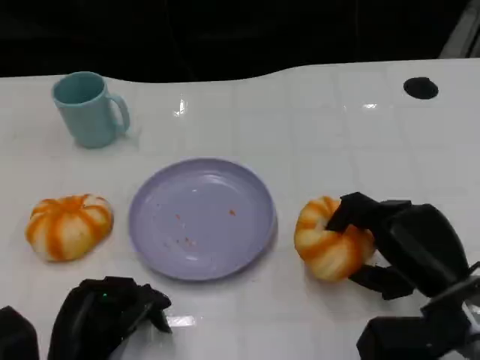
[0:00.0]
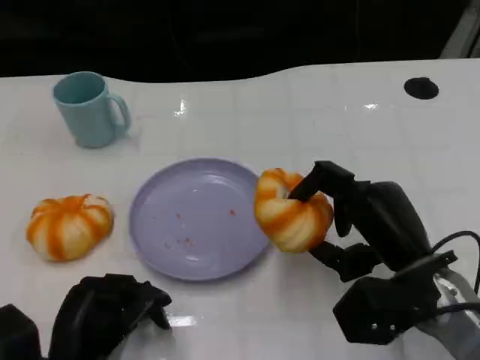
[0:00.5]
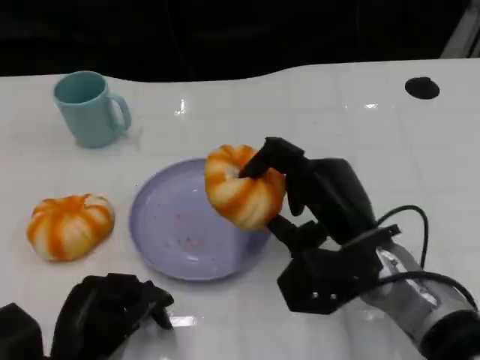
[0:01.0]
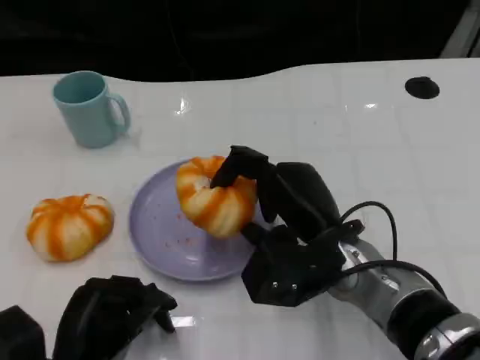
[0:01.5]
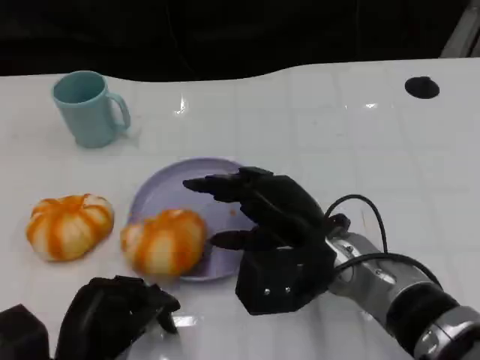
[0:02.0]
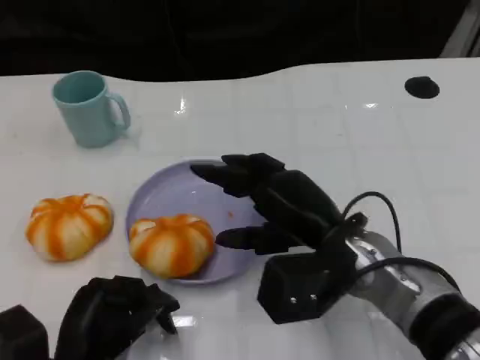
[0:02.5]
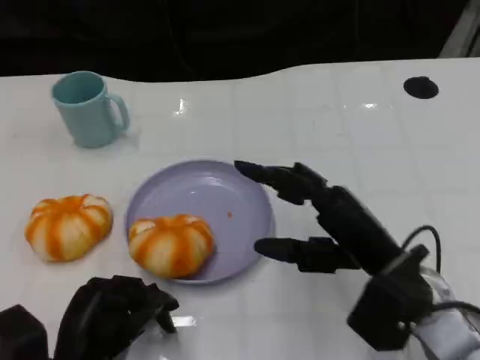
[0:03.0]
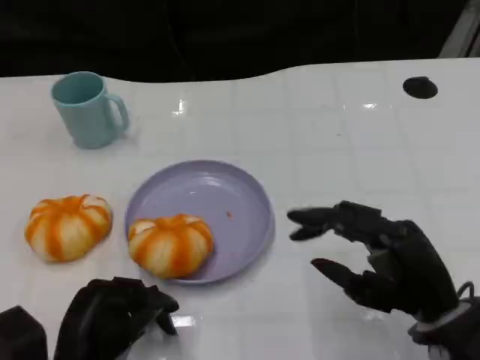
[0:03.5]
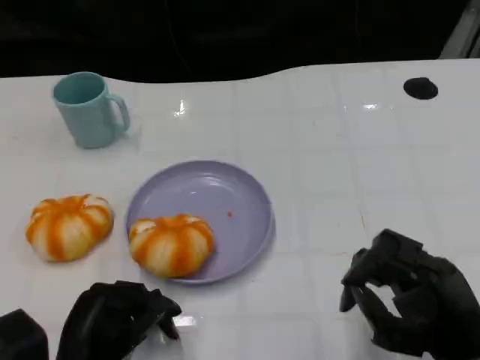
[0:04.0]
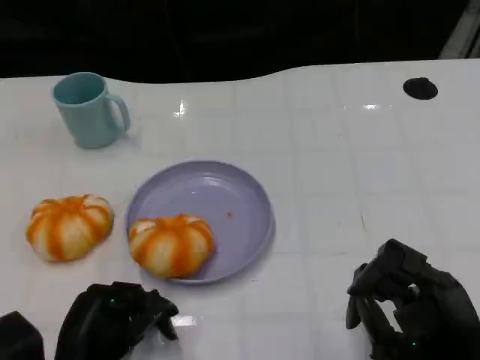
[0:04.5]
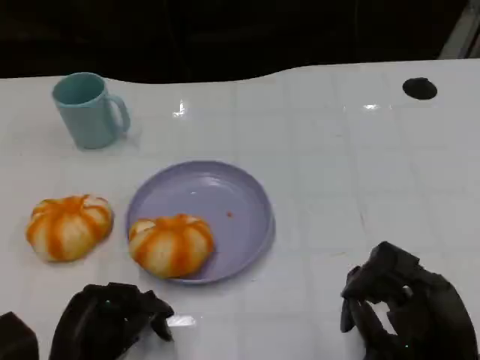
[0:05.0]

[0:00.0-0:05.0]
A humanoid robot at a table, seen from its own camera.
Task of the whole recording: Grasp the bread from the table and place it into the plate.
0:00.0 to 0:02.5: The right hand travels to the left by some 10 cm.
0:02.5 to 0:05.0: The right hand moves backward and to the right, roughly 15 cm.

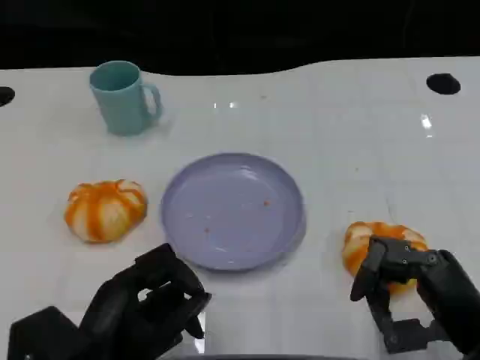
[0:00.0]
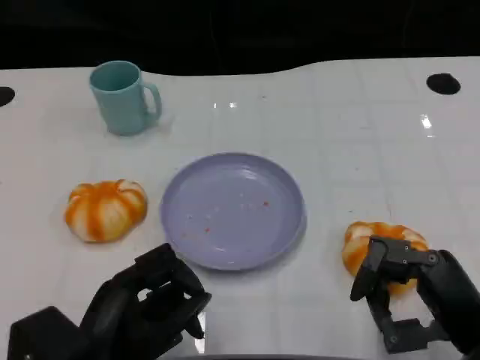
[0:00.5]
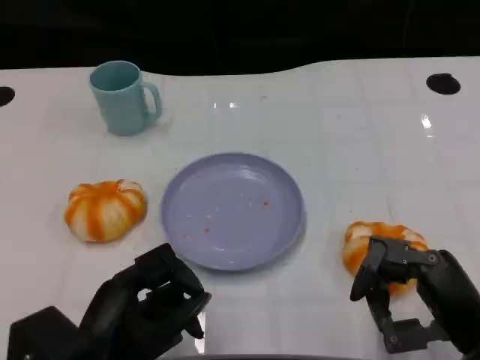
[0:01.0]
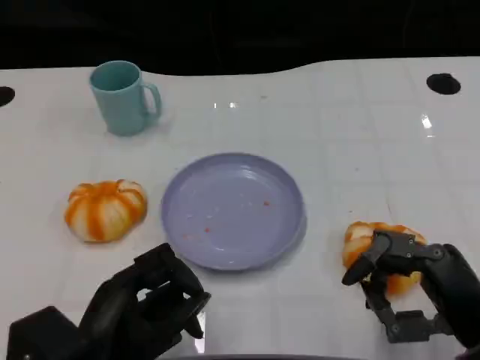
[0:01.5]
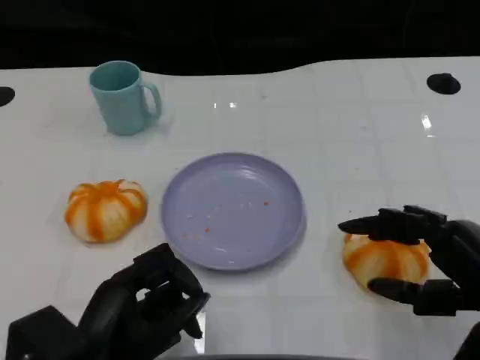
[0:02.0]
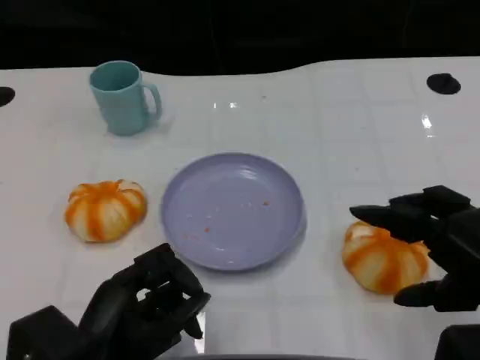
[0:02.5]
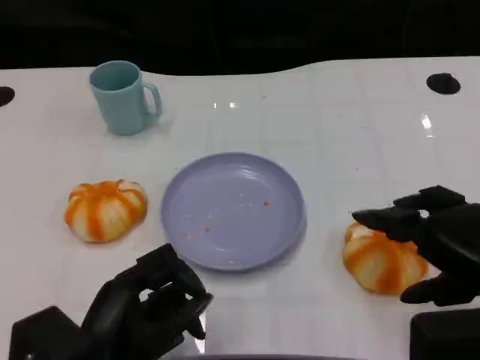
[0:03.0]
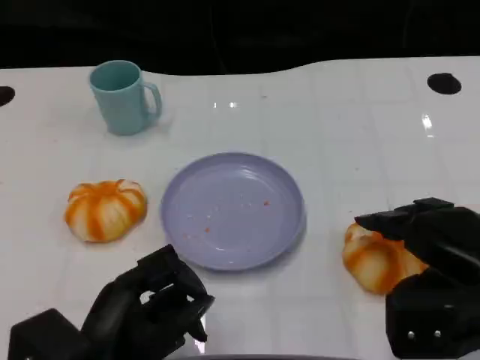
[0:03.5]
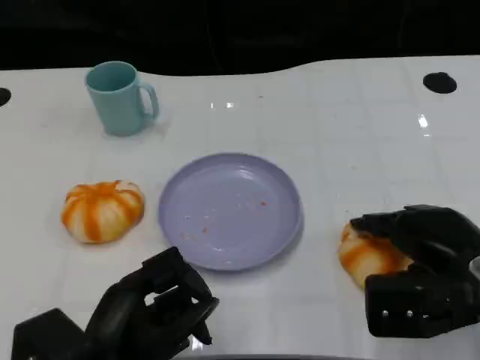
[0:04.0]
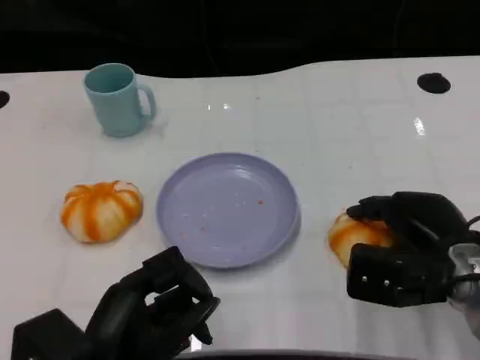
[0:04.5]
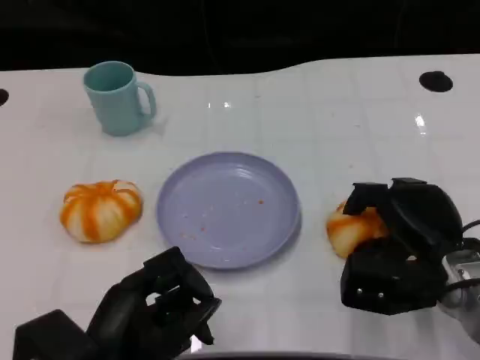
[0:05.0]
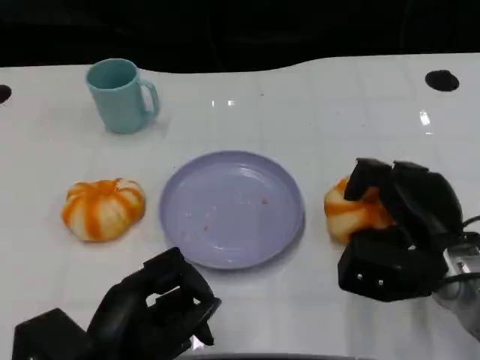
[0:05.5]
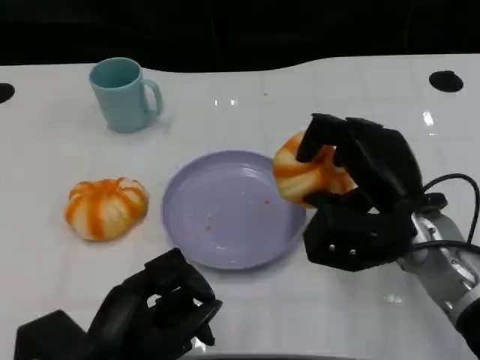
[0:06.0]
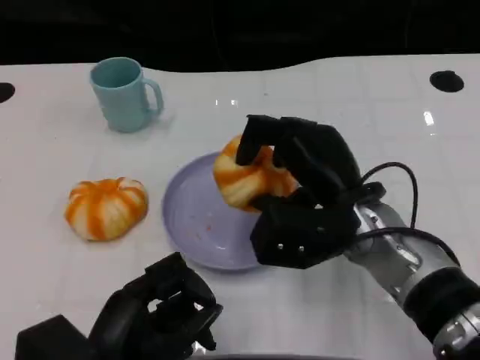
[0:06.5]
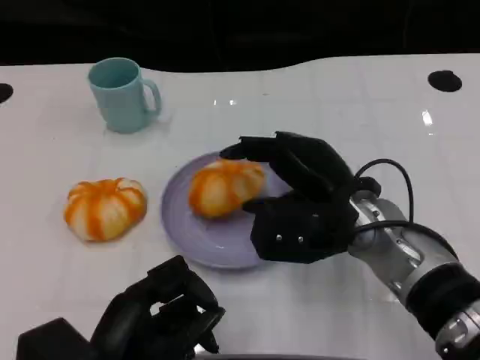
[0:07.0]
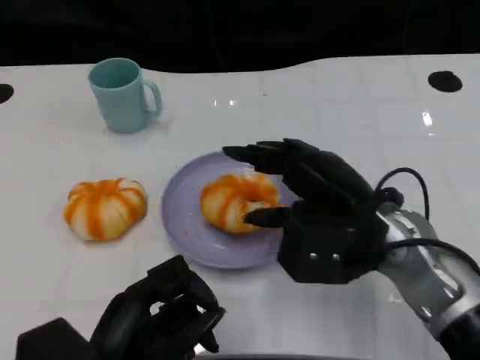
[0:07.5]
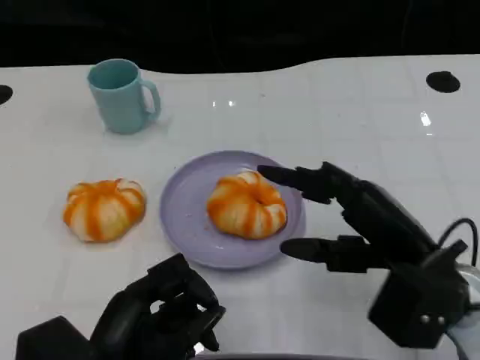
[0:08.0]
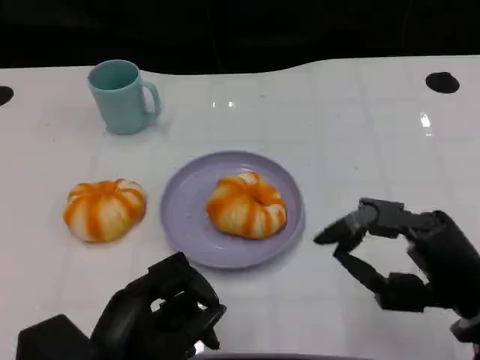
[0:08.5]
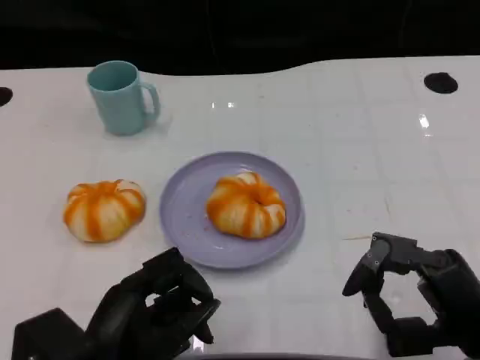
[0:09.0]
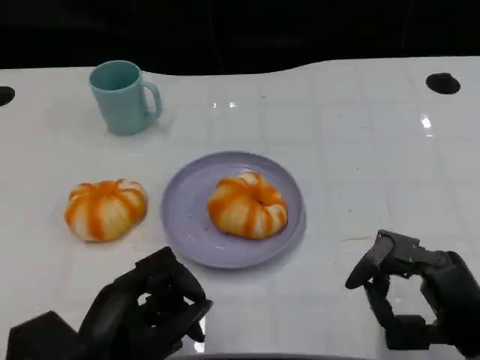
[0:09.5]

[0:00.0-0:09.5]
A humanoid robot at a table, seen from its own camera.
Task of the whole recording: Grasp the bread from the table and place it into the plate.
0:00.0 to 0:02.0: The right hand ends up roughly 5 cm from where it was.
0:02.0 to 0:04.0: The right hand moves forward, approximately 5 cm.
0:05.5 to 0:07.5: The right hand is displaced upward and to the left by about 10 cm.
0:07.5 to 0:09.5: The right hand travels backward, to the right and downward by some 15 cm.
